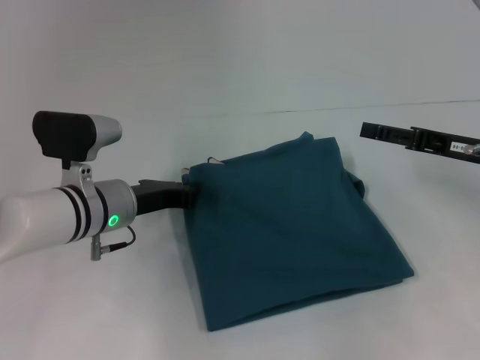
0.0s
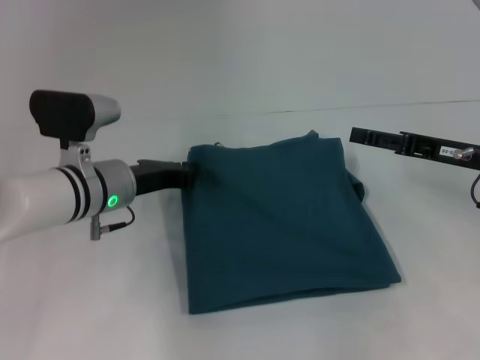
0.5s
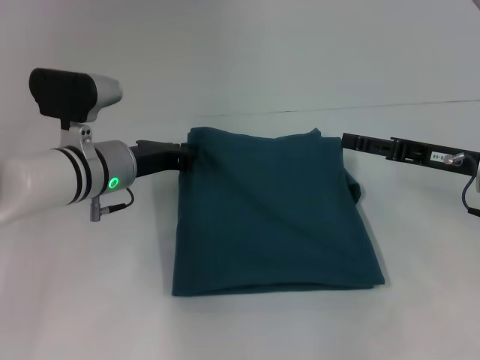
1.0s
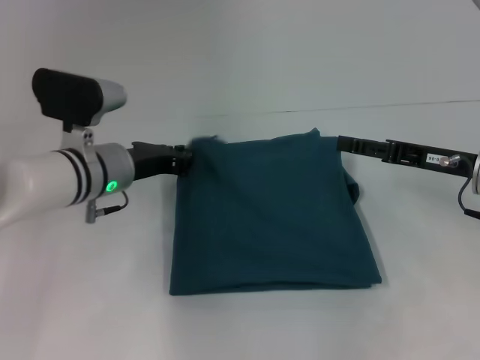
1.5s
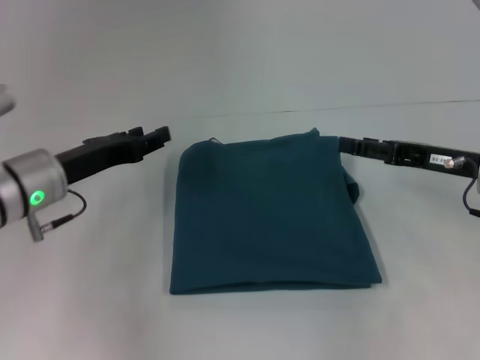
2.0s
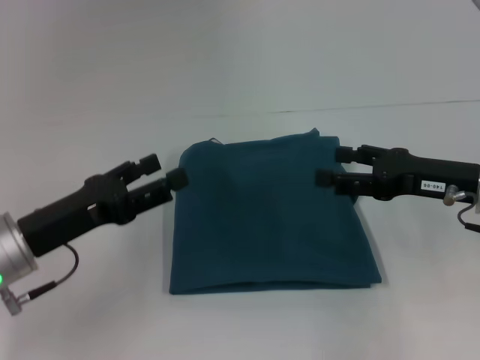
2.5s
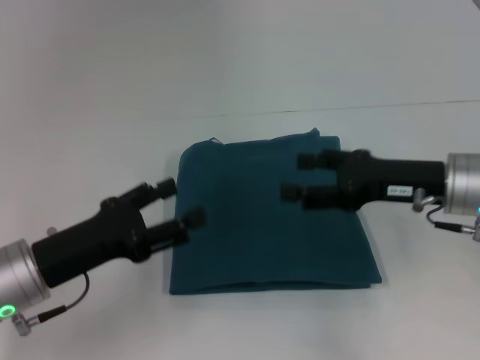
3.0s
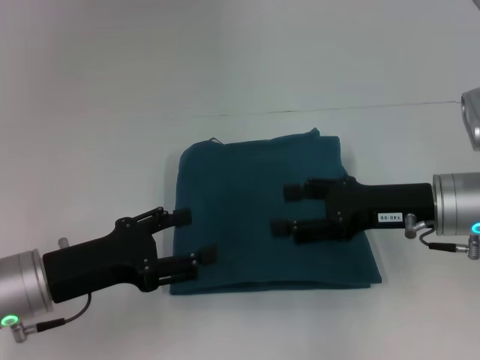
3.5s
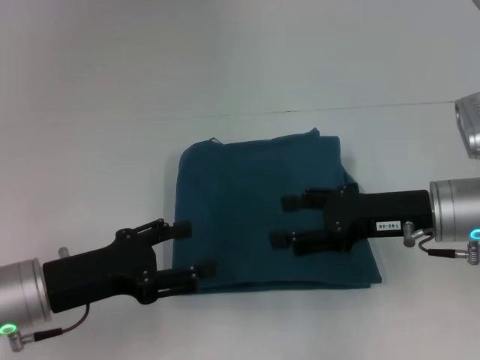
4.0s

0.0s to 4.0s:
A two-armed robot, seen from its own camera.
0.0s to 2.0s: The left gripper travels to the left by approximately 5 cm.
2.0s to 4.0s: The left gripper travels backward by roughly 10 cm, and opens up; the right gripper shifts some 5 cm to the left.

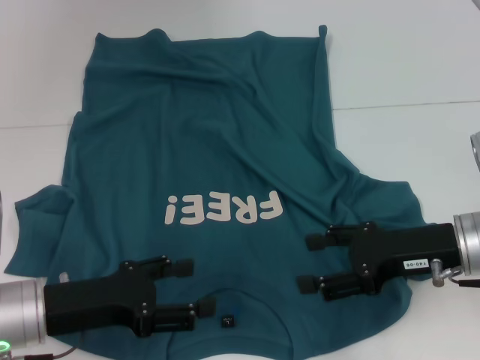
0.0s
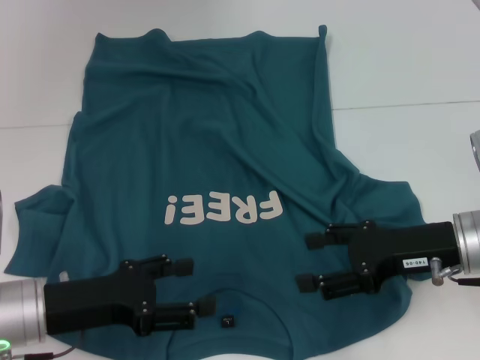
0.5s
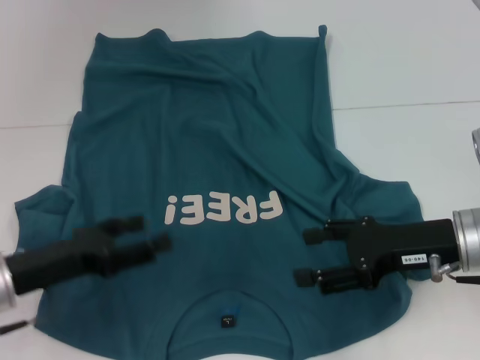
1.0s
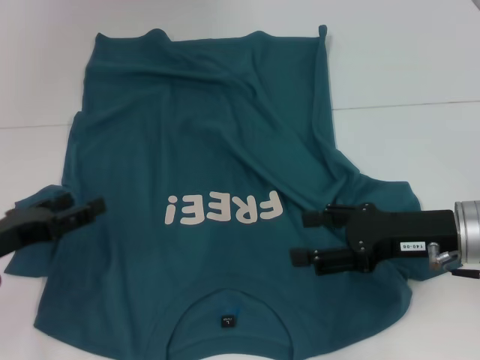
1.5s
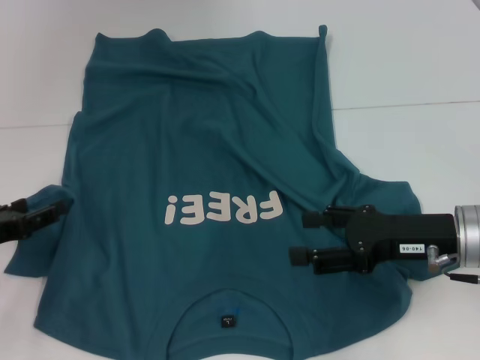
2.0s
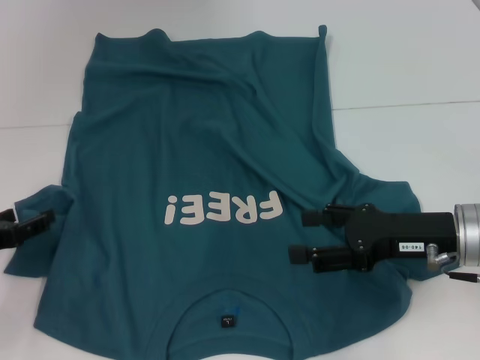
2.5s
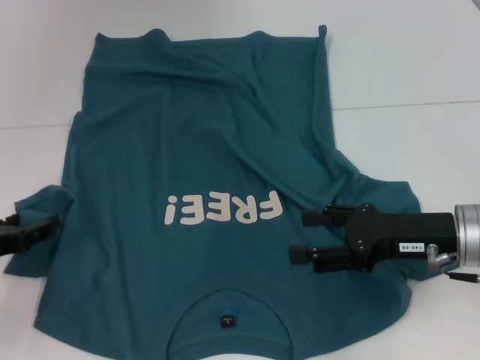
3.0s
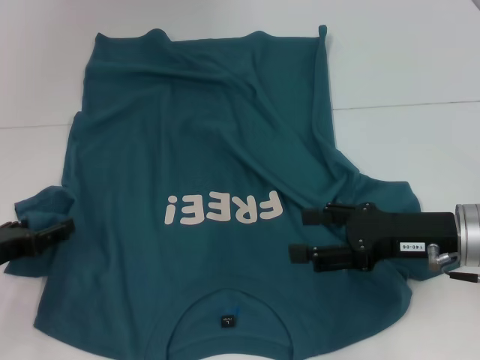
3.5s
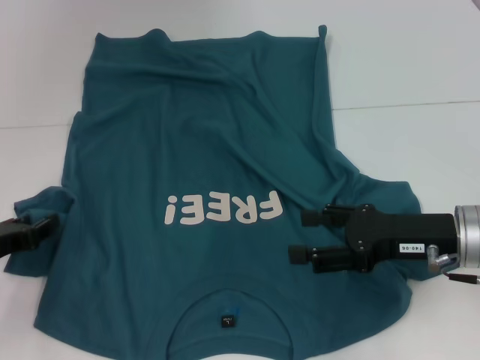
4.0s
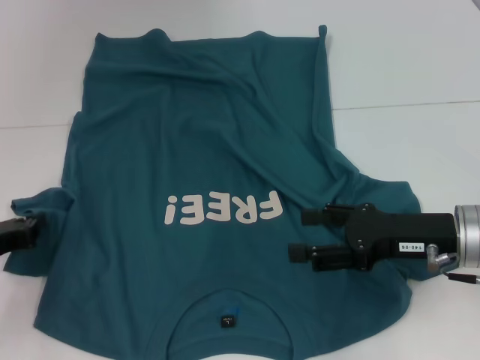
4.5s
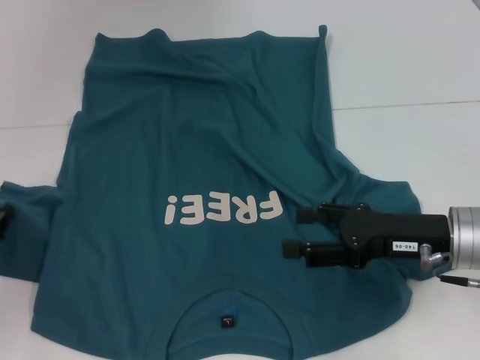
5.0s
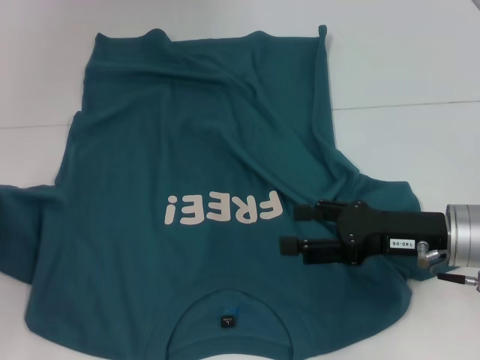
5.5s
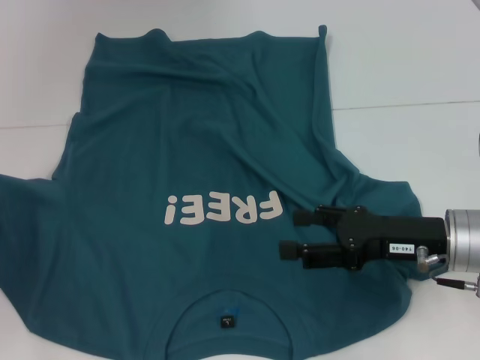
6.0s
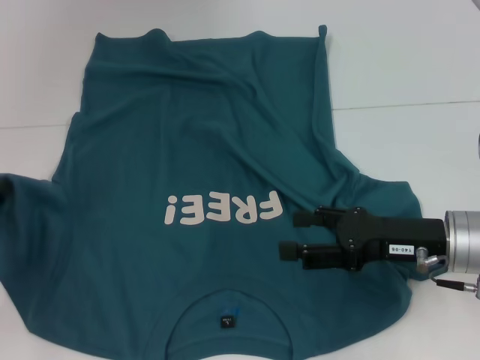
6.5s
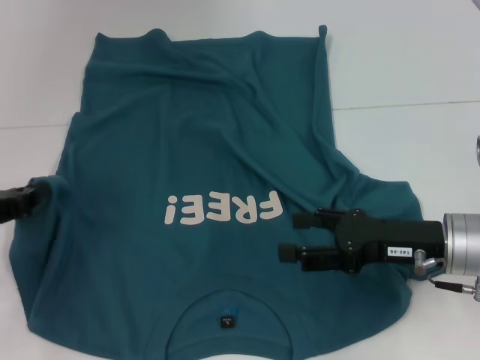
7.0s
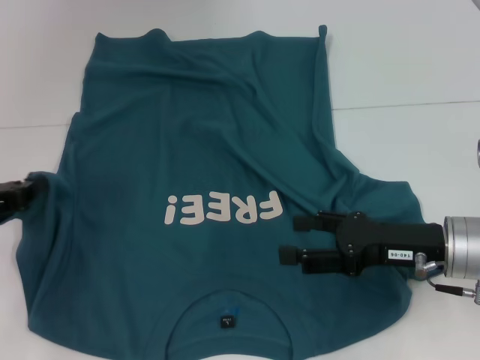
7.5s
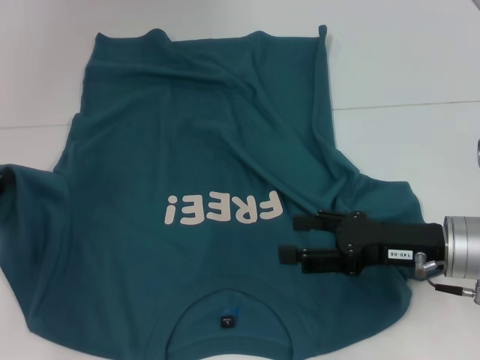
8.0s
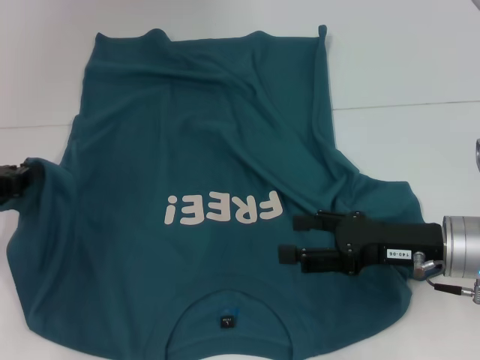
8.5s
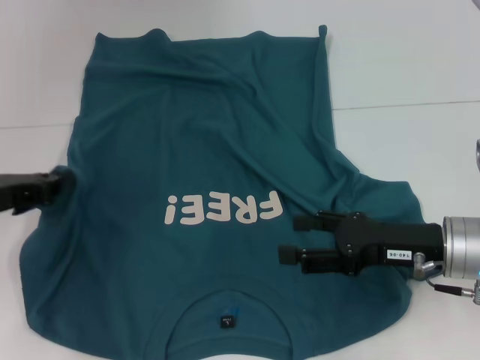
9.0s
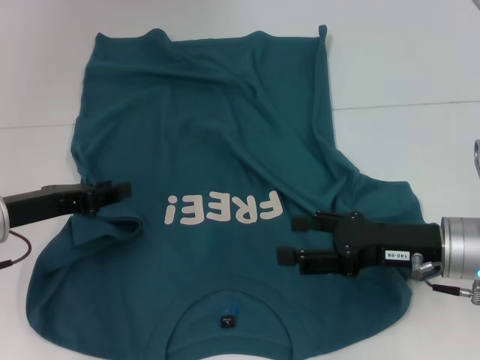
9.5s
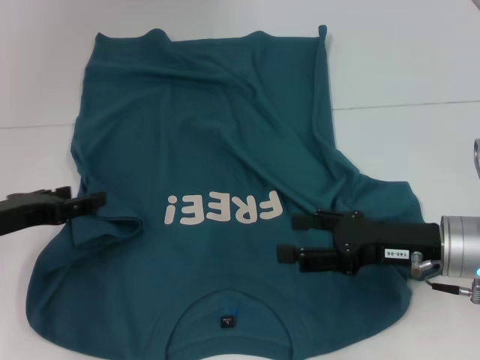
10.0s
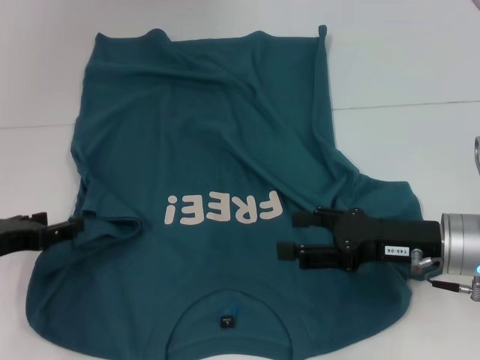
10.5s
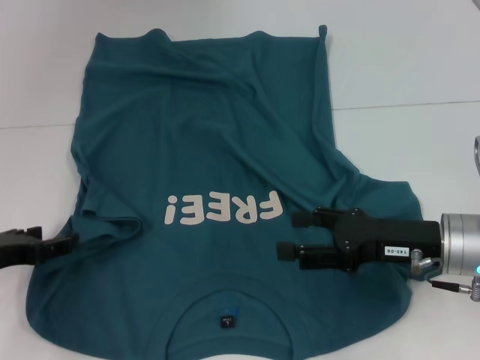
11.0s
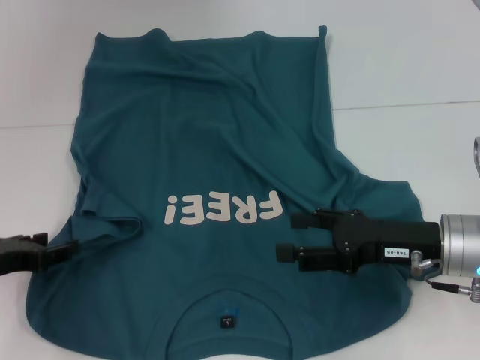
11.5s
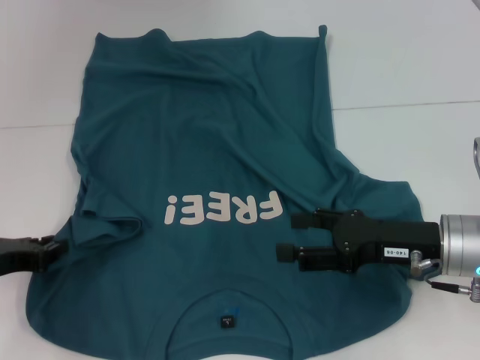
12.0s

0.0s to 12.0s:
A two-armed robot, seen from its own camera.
0.0s to 2.0s: The left gripper shifts roughly 10 cm to the left.
2.0s to 4.0s: There are only small adjustments of the grippers.
4.0s to 6.0s: The left gripper ends up roughly 5 cm from where it was, and closes up.
8.0s to 10.0s: The left gripper travels to the right by roughly 5 cm, and opens up.
10.0s to 12.0s: The grippers move only a little.

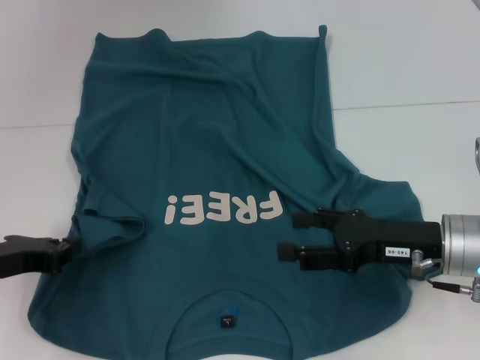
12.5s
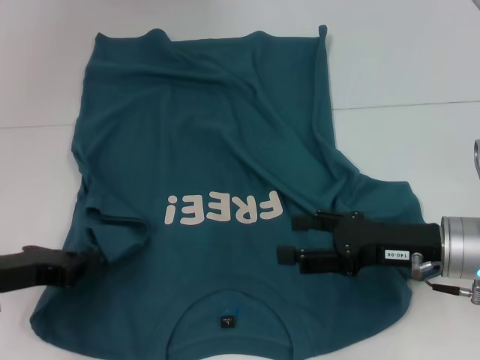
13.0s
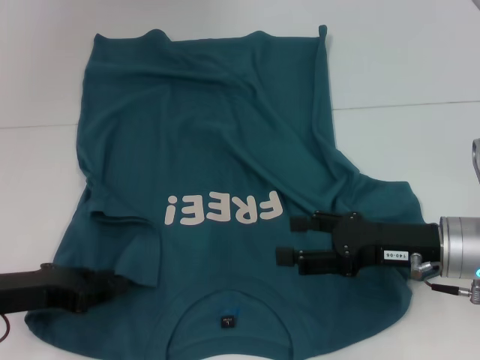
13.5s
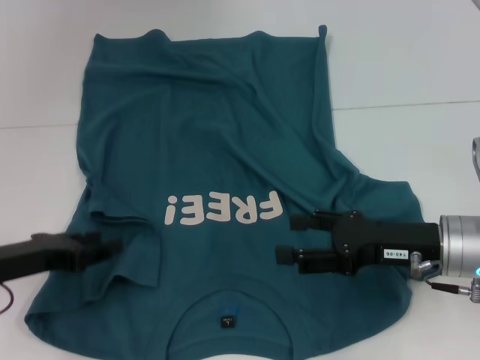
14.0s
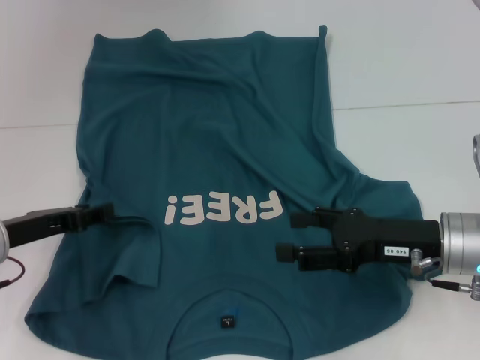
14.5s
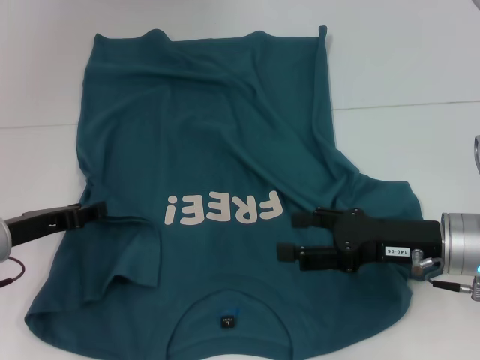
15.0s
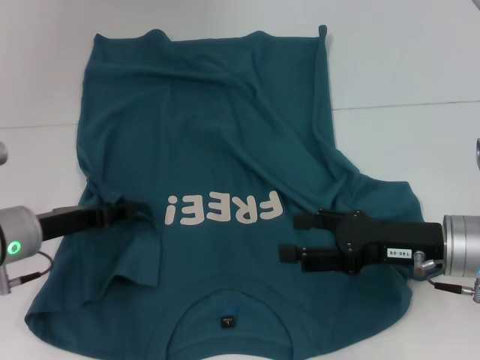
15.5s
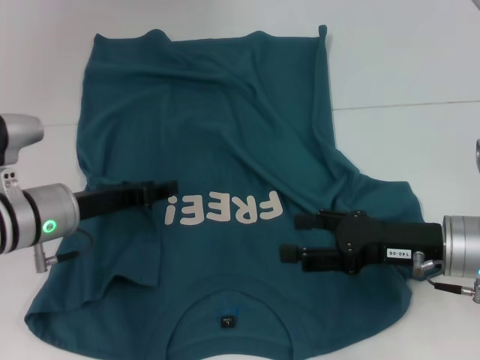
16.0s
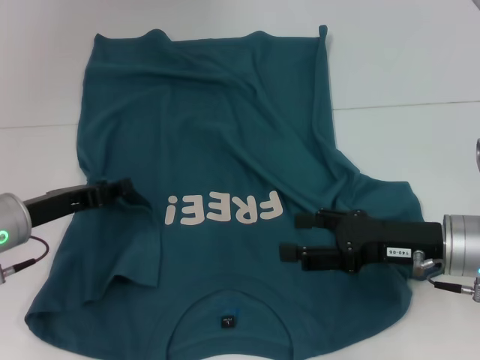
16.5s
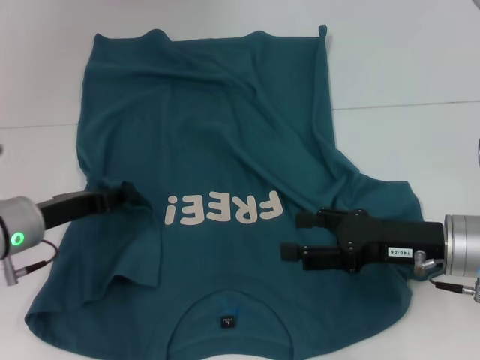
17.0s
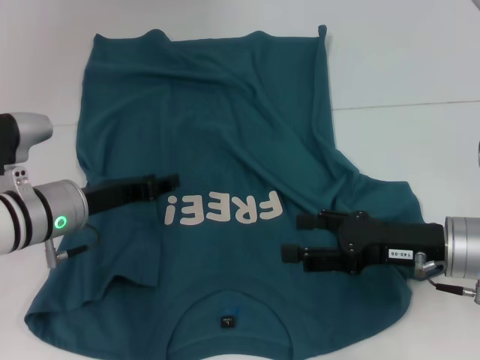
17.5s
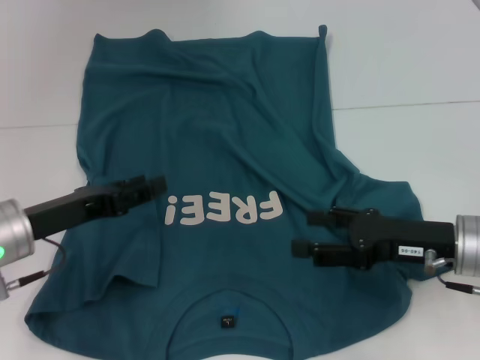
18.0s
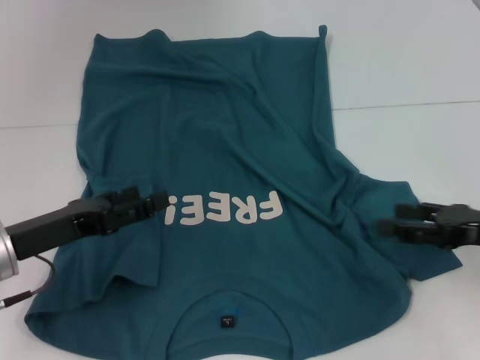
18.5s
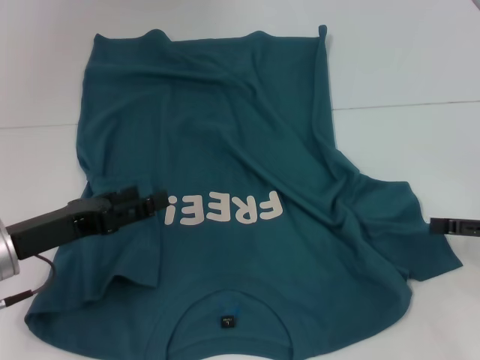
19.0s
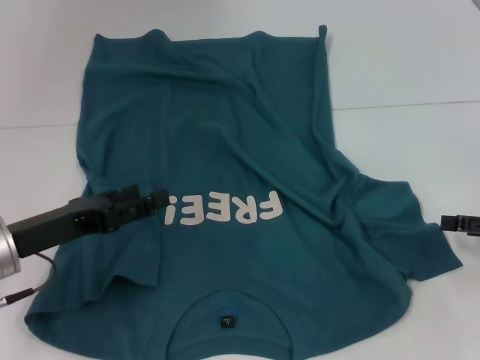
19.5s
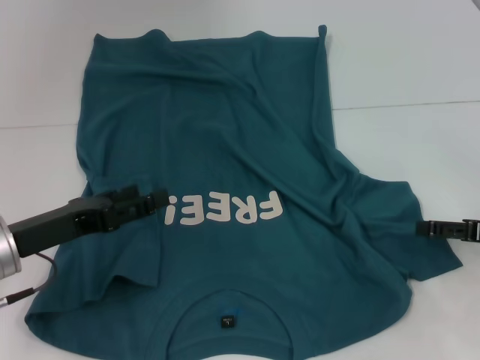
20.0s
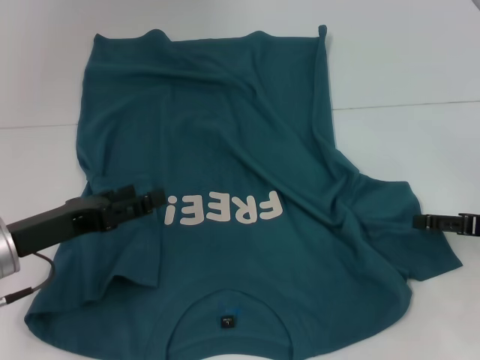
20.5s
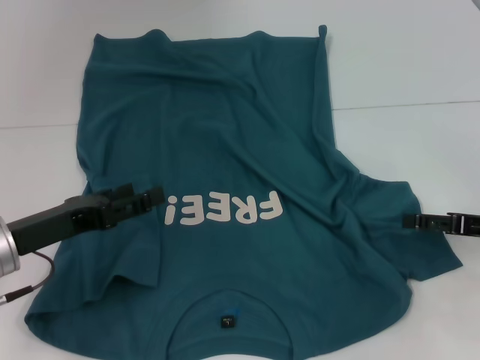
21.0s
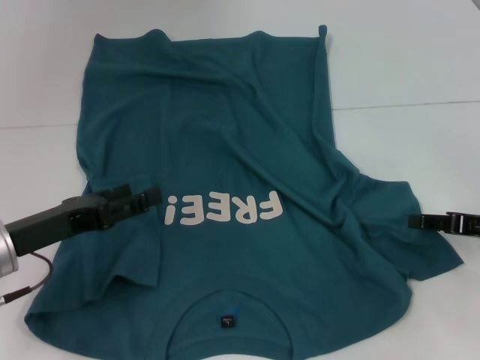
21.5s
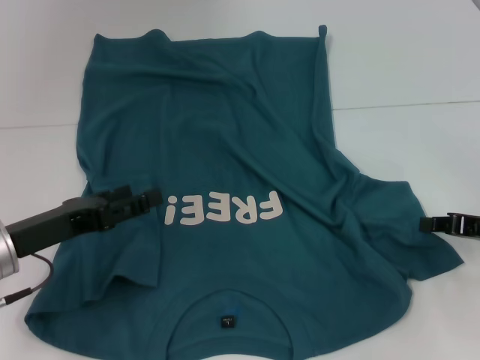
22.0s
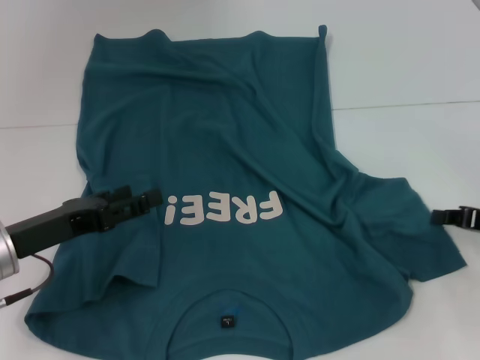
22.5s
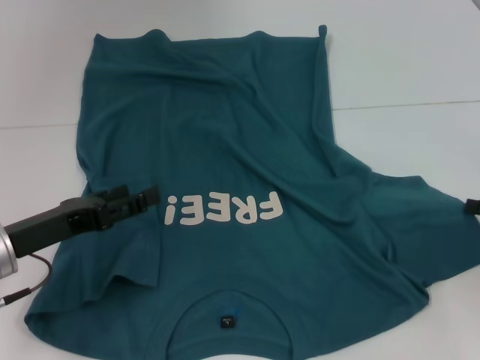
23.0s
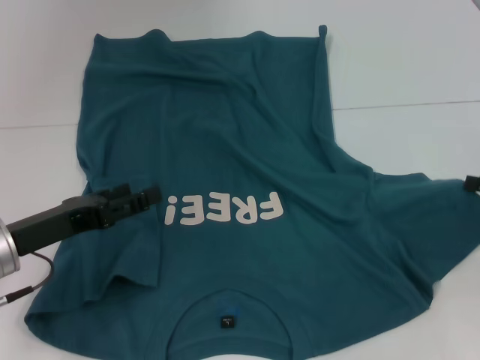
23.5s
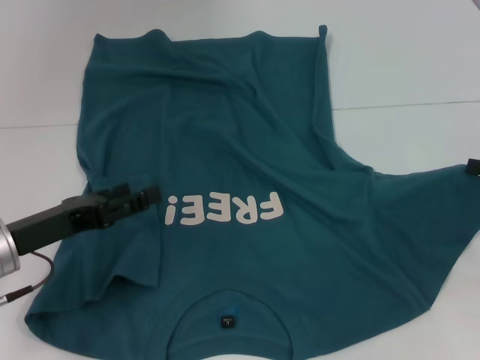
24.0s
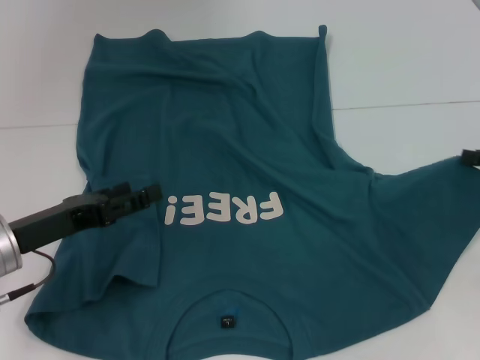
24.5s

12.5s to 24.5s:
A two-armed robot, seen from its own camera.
Step, 12.5s to 17.5s: Fold the bottom left sleeve with your left hand.
12.5s to 14.5s: The left gripper opens.
16.5s to 18.5s: The left gripper ends up about 5 cm from where it was, while the right gripper travels to the right by approximately 10 cm.
20.5s to 22.5s: The right gripper closes.
22.5s to 24.5s: The right gripper ends up some 5 cm from where it was.
